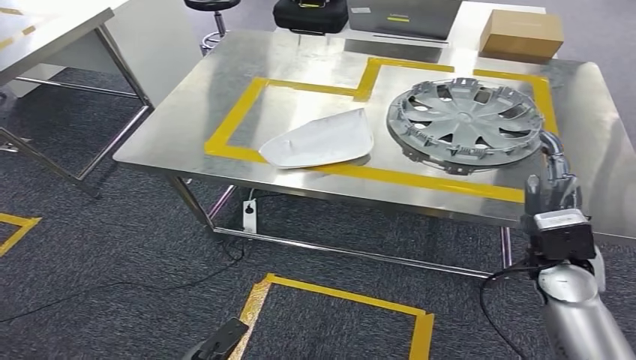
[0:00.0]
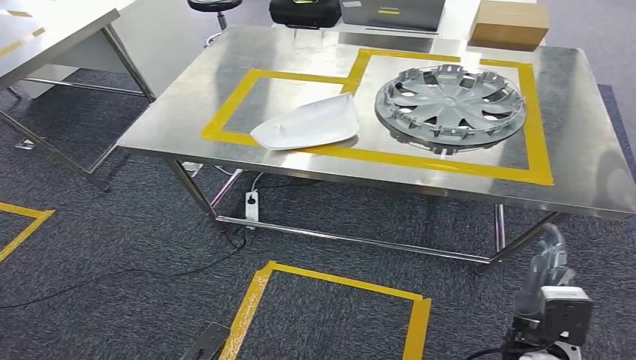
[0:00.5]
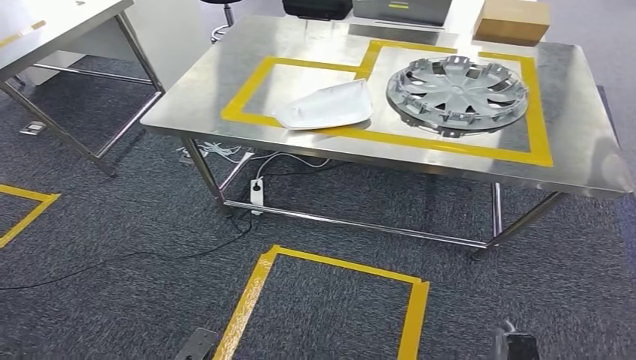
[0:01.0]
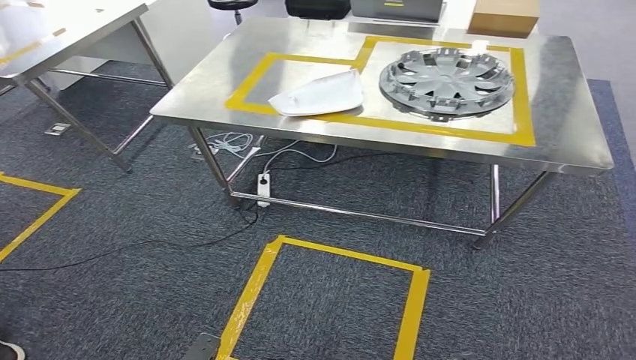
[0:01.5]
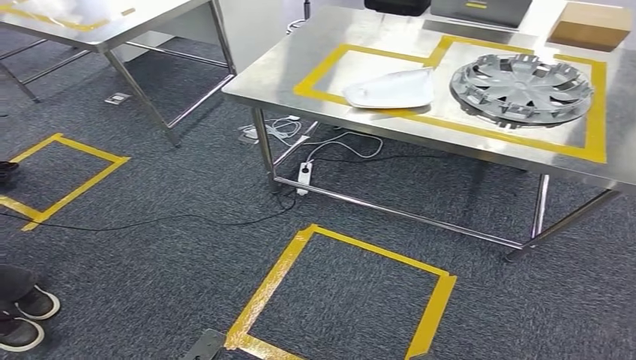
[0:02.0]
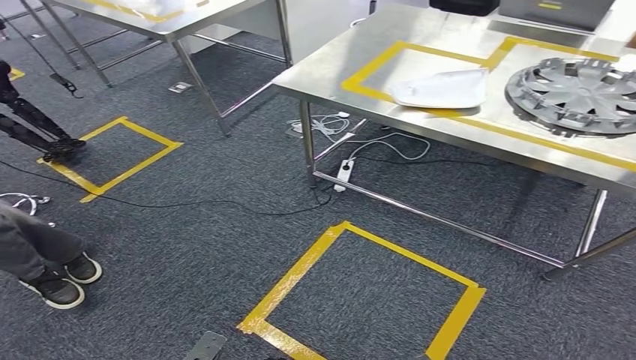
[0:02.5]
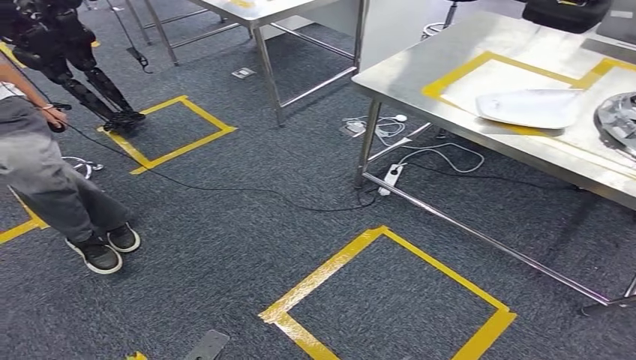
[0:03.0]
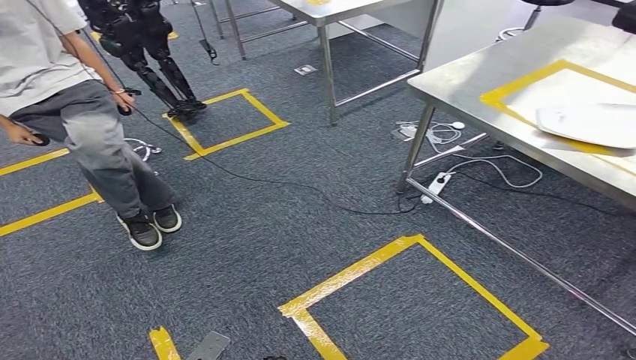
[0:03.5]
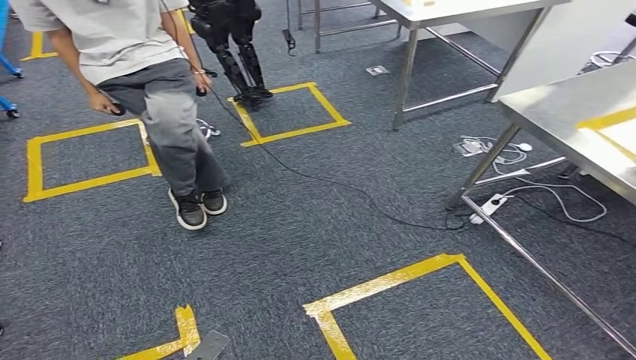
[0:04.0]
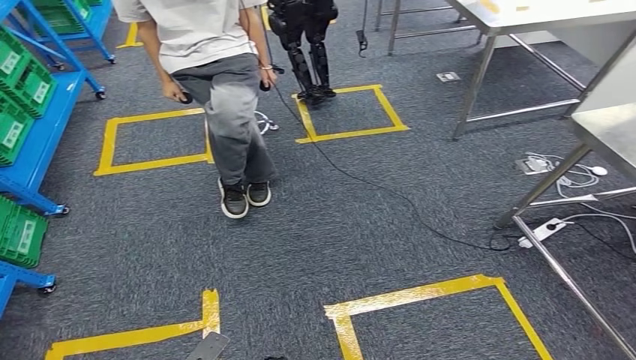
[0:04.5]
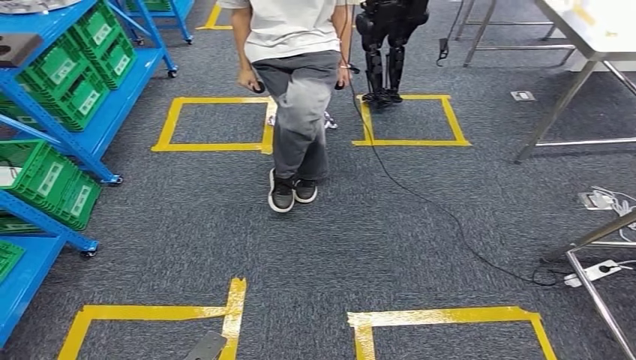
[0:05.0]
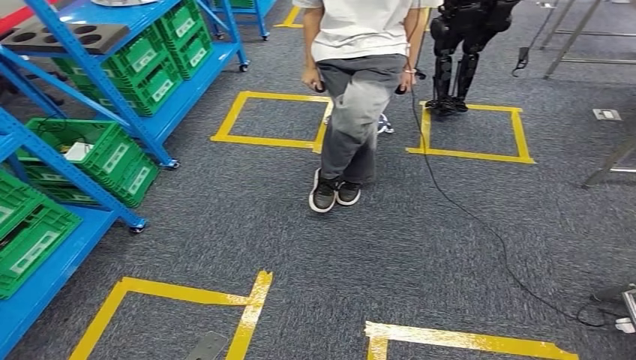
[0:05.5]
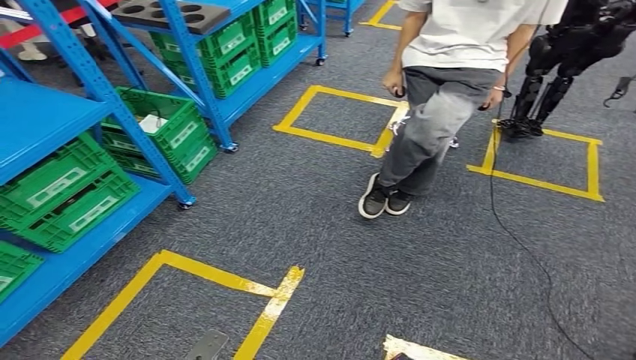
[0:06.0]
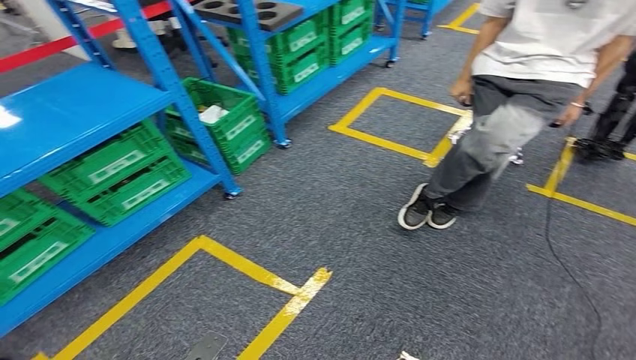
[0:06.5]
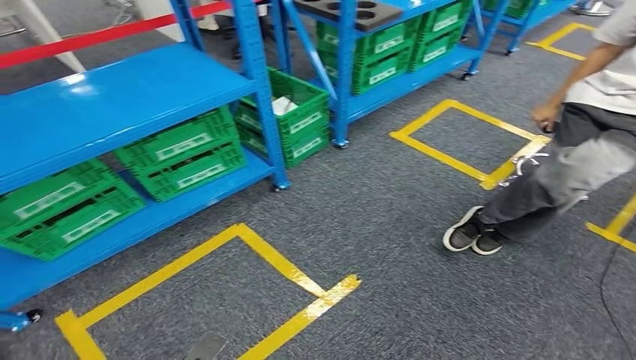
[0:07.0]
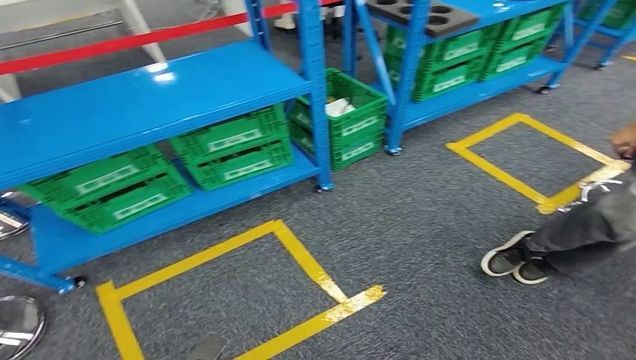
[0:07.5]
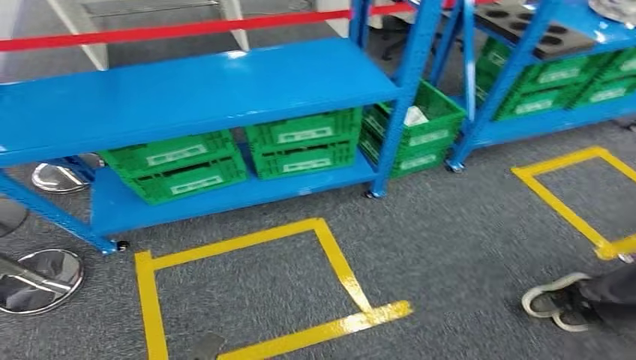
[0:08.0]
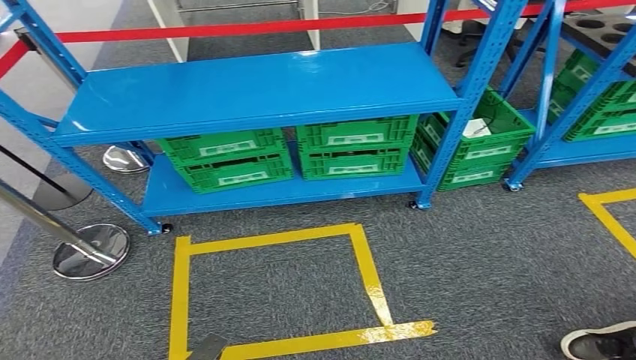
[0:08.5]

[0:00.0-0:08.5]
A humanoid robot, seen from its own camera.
Step, 0:00.0 to 0:08.5: Move to the initial position of the workbench.
